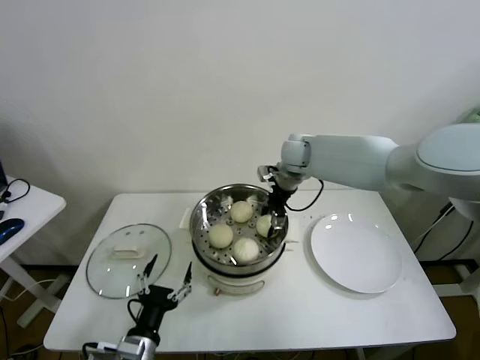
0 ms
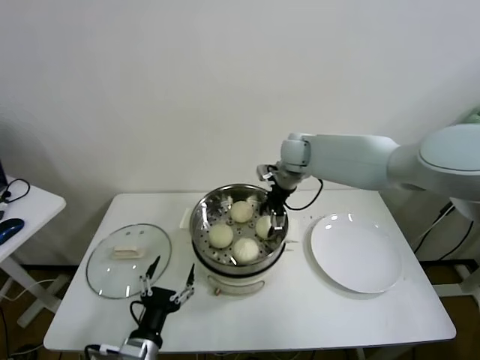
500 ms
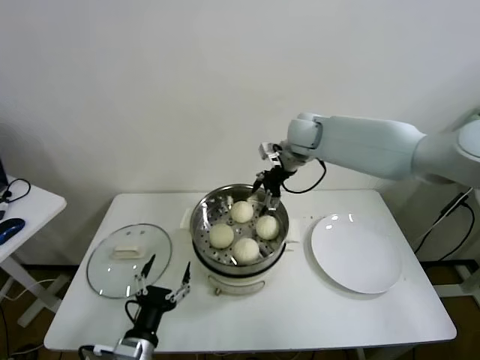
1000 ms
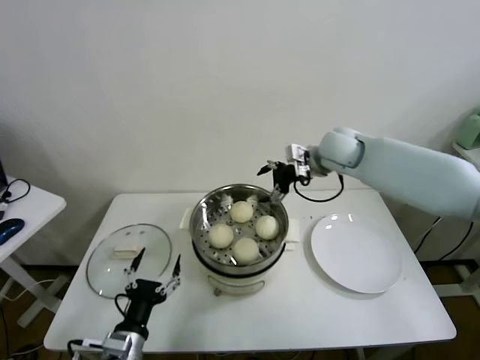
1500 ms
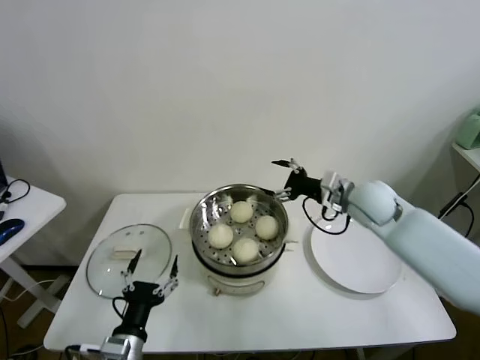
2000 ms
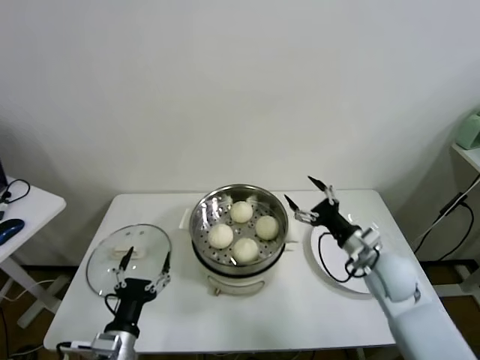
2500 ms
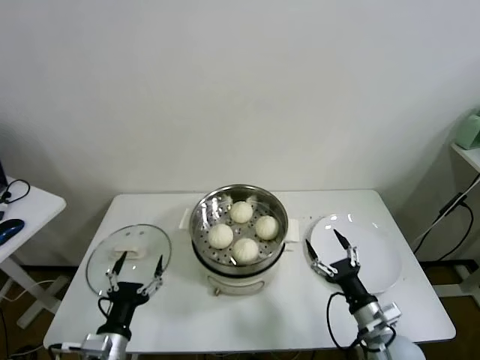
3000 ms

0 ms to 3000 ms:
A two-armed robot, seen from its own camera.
Task of the whole recording: take steamed baozi put them in steamer.
0 ms to 1500 ms: The right gripper heads to the right and upward, covering roughly 10 cm, and opens up.
1500 ms to 3000 ms: The right gripper shifts approximately 40 cm backward and downward.
